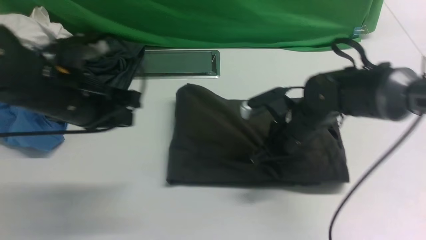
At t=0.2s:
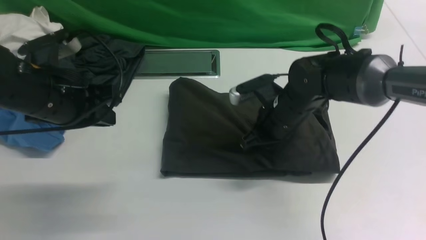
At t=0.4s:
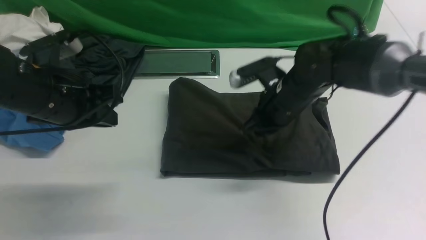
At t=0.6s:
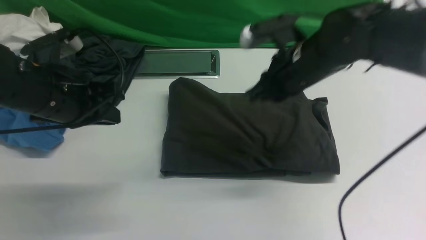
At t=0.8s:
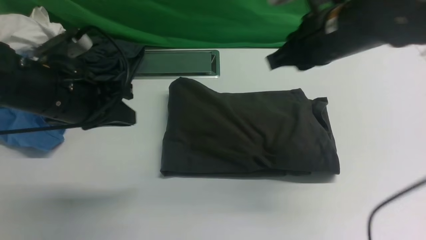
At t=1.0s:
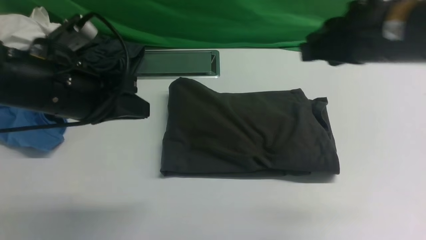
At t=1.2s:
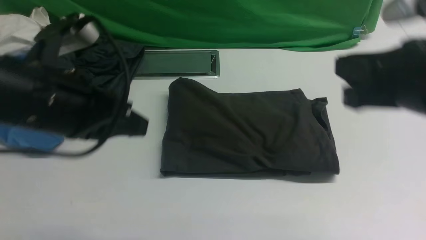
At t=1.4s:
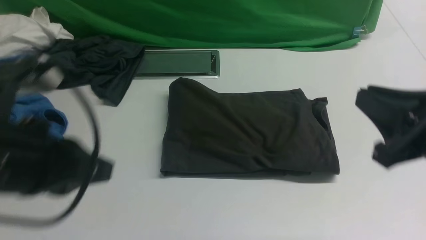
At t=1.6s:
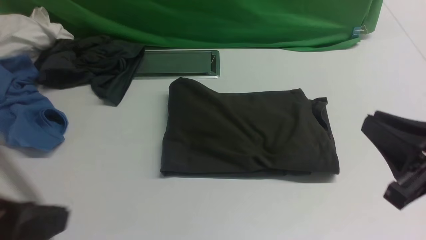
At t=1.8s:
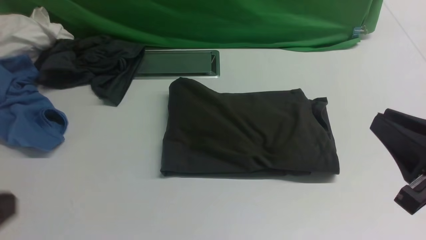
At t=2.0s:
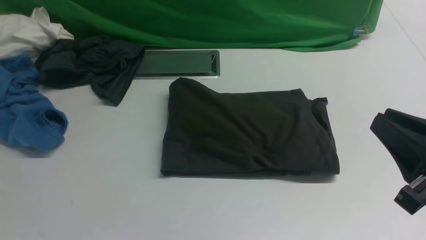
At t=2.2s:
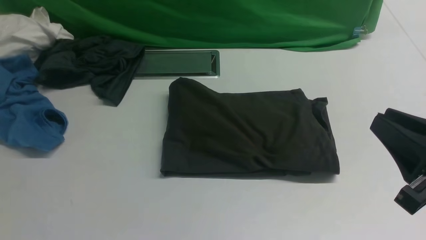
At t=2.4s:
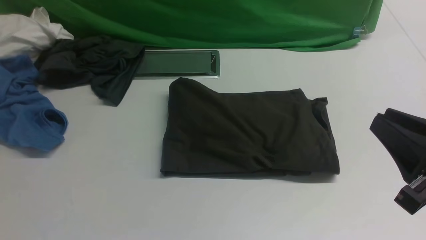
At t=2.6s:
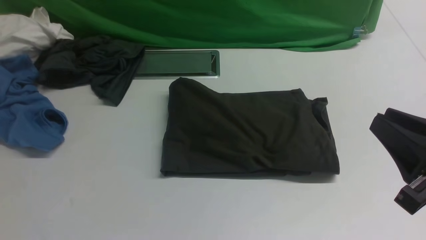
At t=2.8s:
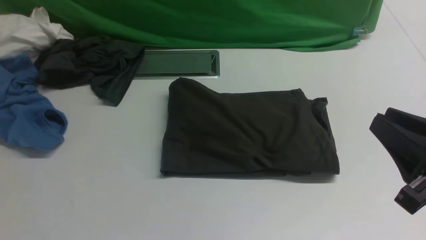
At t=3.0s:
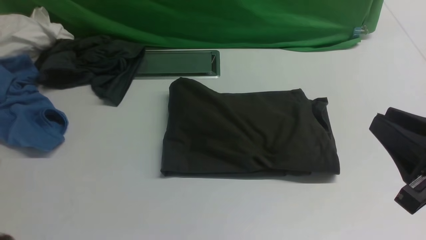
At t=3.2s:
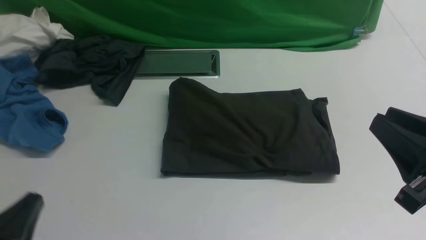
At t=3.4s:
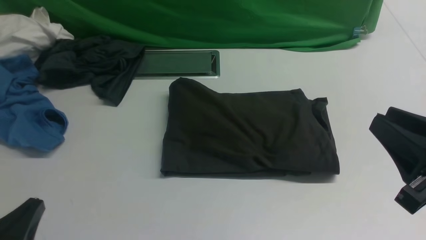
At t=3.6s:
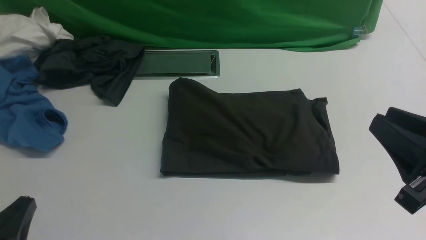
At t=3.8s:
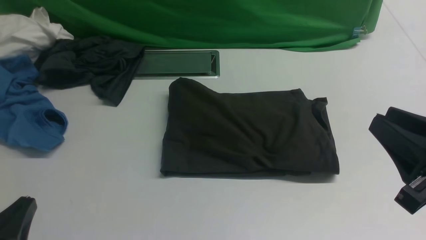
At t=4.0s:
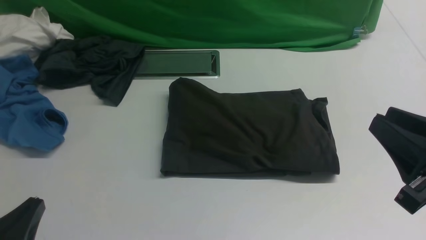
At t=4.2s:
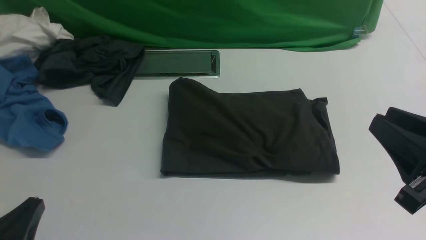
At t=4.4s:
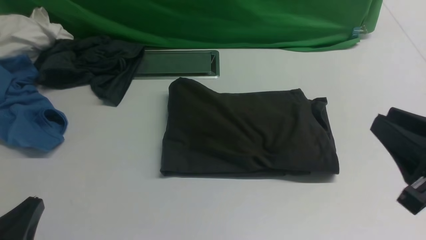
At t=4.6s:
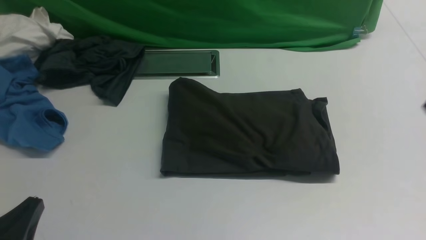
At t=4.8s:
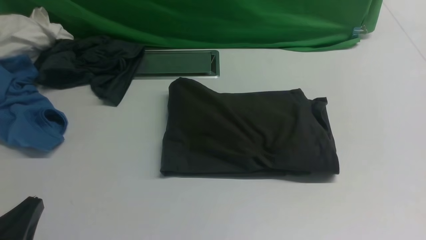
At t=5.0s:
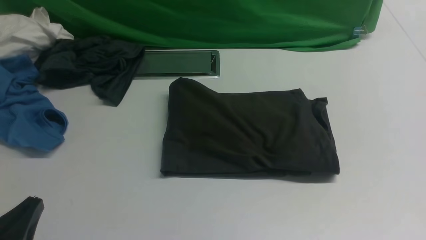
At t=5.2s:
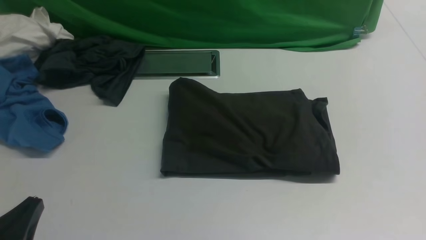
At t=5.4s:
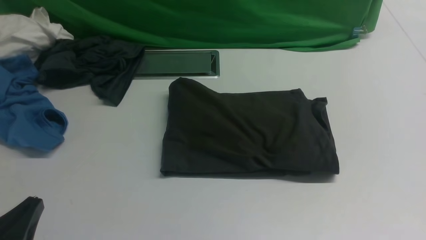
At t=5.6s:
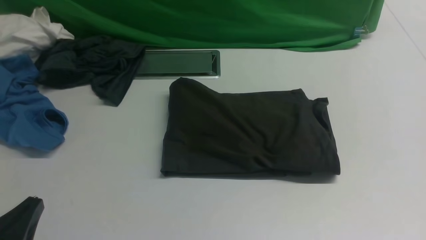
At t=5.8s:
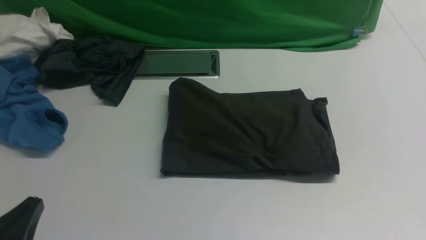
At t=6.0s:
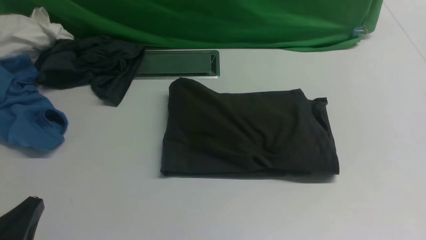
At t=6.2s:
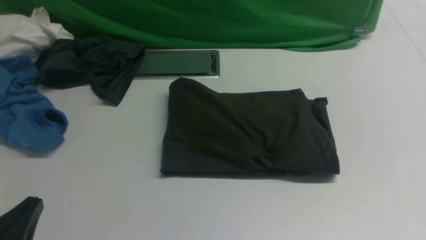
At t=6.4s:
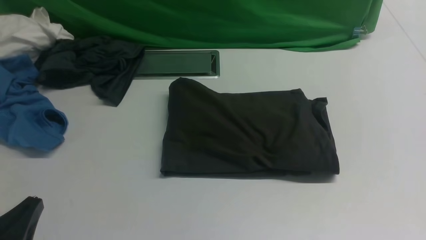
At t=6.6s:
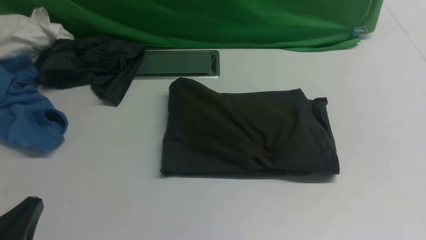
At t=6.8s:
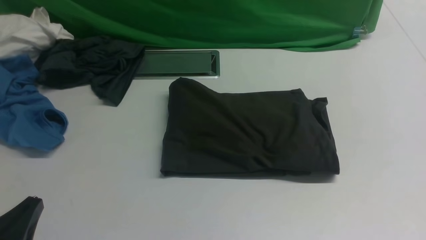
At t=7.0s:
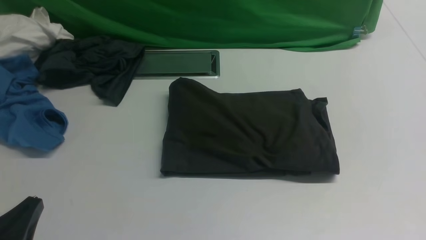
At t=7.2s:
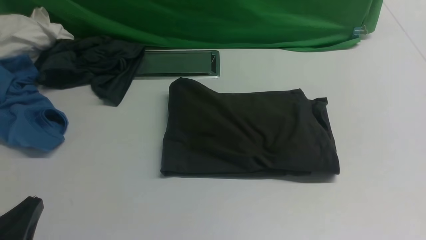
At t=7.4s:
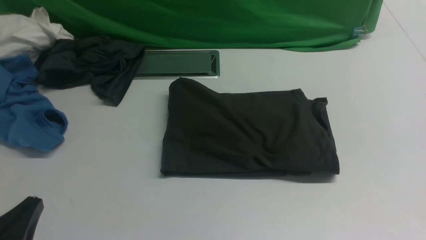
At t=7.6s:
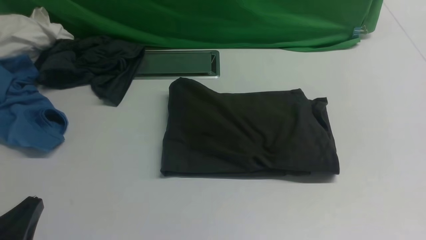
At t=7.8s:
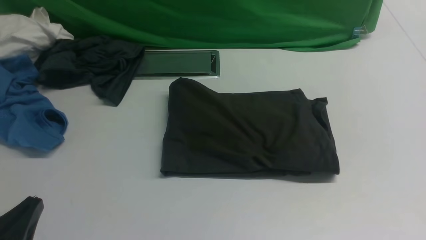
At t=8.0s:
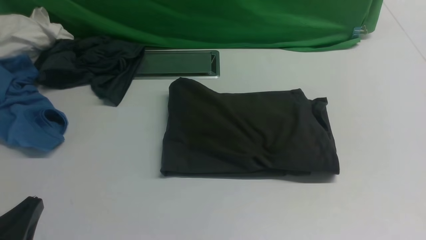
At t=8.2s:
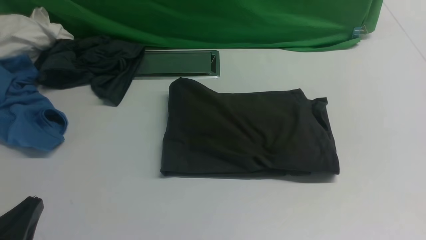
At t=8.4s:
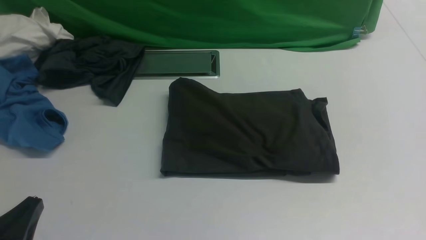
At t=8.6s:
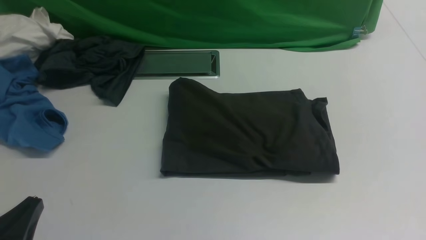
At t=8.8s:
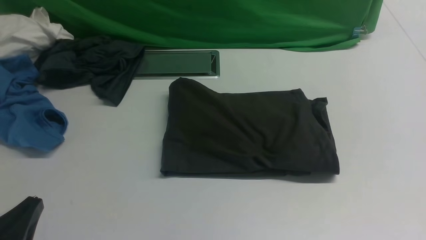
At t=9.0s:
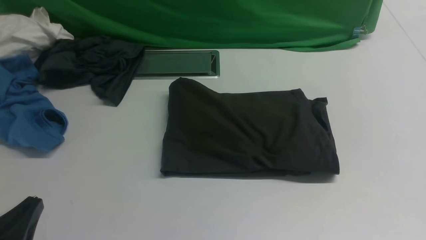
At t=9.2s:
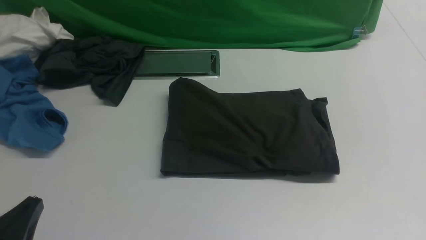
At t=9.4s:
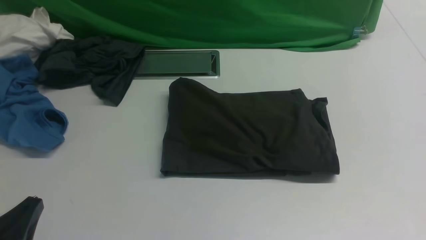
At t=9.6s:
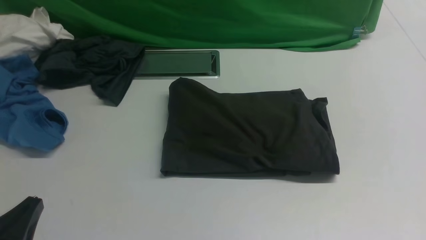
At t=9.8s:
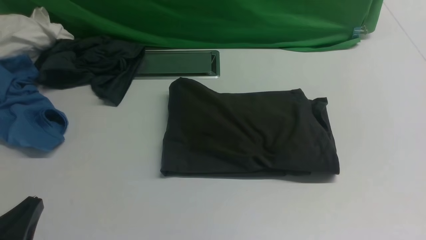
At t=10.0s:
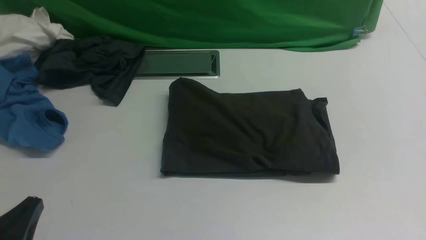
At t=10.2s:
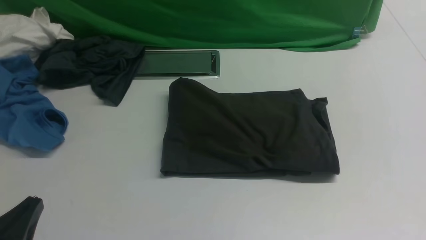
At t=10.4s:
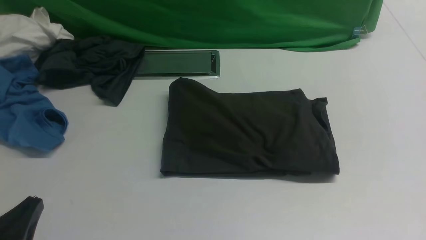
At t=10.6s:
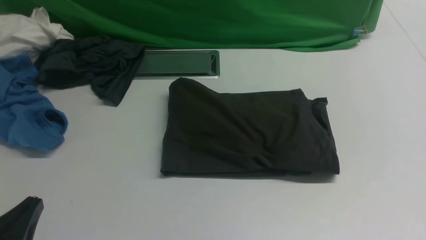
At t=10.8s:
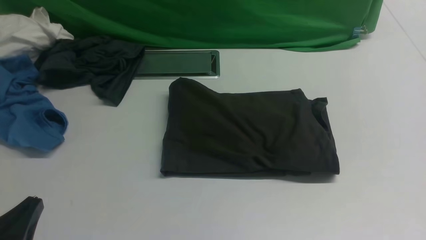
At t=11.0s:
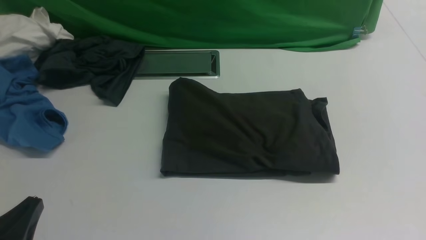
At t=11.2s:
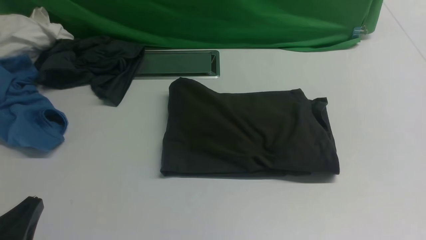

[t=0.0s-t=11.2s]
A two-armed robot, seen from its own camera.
t=0.0s to t=1.6s: The left gripper moves backward, approximately 20 cm; the right gripper heads backward, to the right and upward, covering roughly 25 cm.
t=1.6s to t=3.2s: The left gripper travels downward by some 15 cm.
t=3.2s to t=4.8s: The grippers move only a little.
t=6.4s to t=11.2s: Neither gripper changes place.
